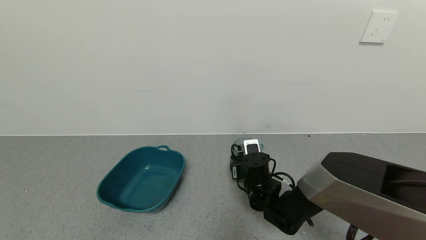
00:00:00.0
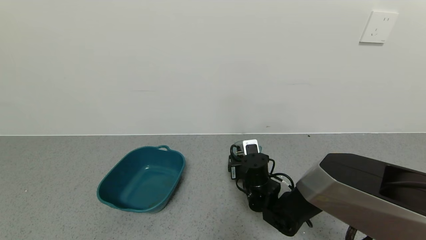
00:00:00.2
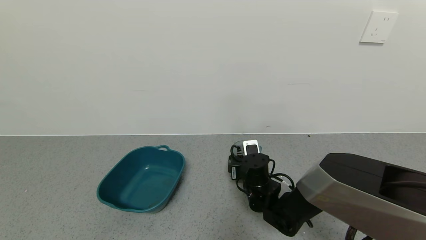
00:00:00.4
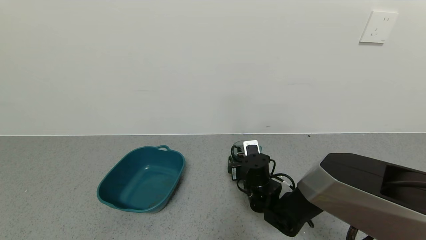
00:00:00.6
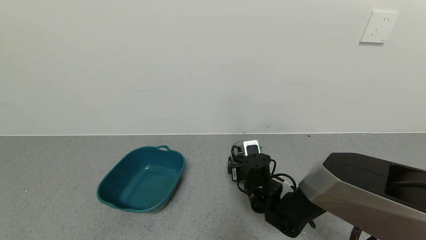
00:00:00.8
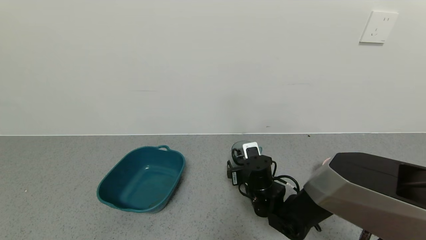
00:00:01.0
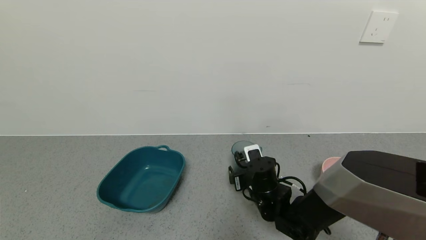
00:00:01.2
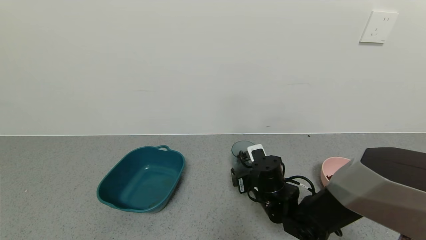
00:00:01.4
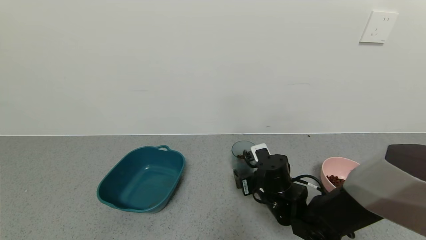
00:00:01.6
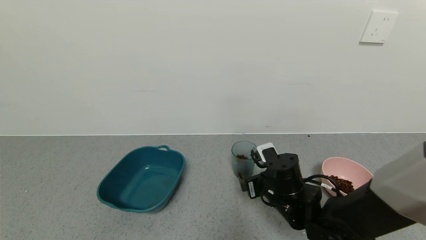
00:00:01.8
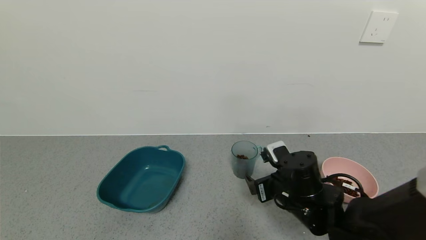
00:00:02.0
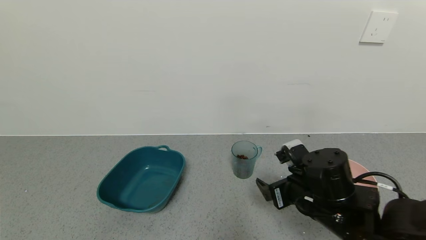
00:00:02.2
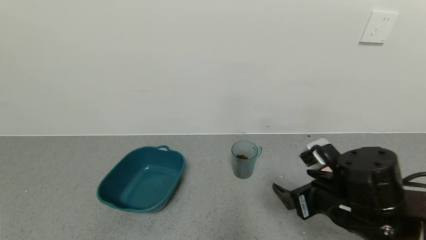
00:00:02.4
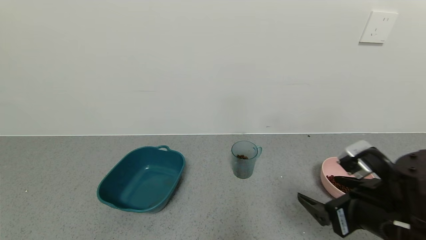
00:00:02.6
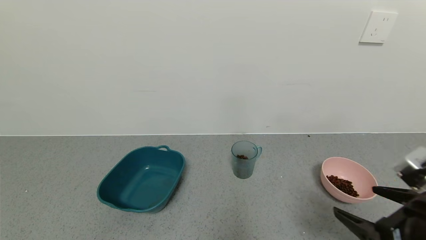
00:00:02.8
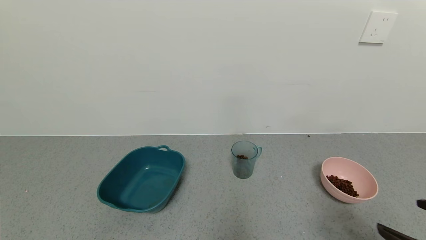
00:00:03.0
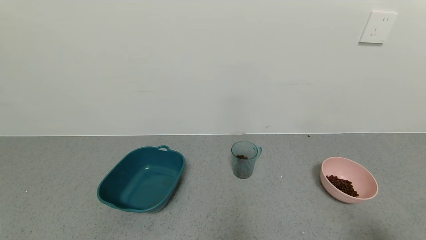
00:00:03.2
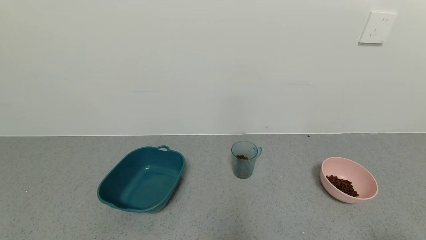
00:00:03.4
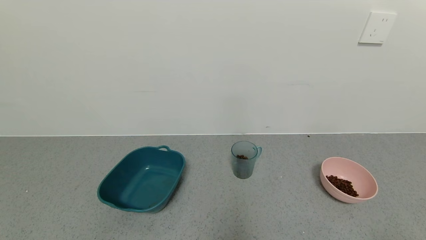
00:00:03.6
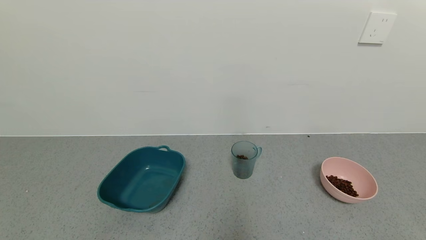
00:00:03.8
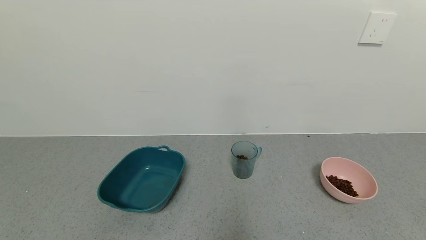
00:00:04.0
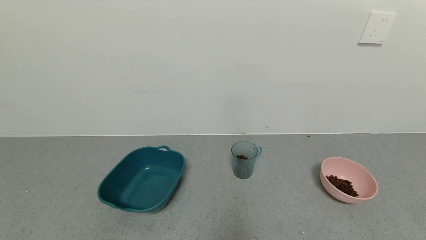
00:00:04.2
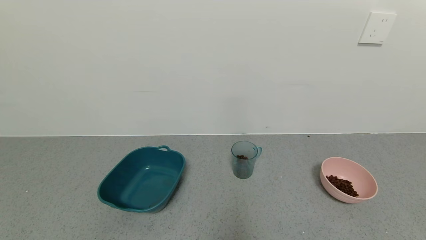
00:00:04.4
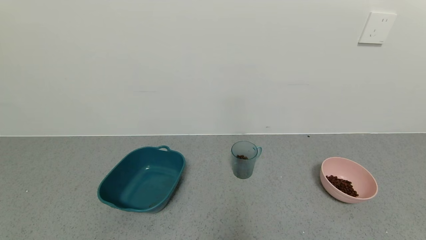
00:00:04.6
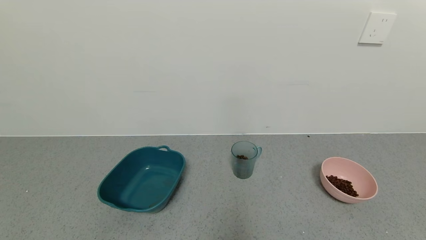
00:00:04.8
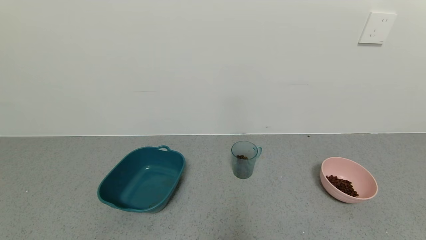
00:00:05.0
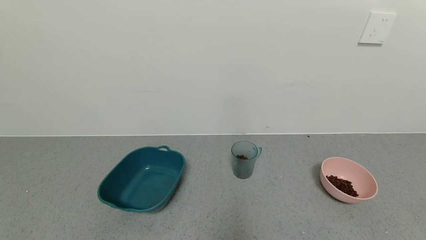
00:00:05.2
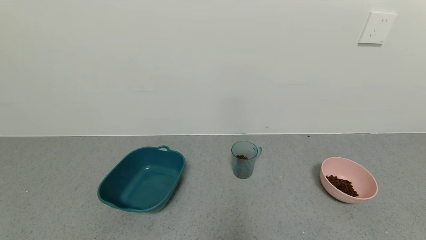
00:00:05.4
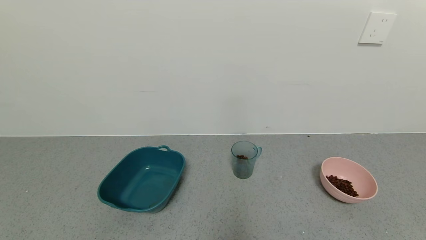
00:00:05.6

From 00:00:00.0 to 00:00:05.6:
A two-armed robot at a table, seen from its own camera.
Task of the whole recording: use a gripper to pick up the cup and pour the solid into a bowl or tray.
From 00:00:00.0 to 00:00:01.4: The right gripper opens.
From 00:00:01.4 to 00:00:02.8: The right gripper heads backward, to the right and upward, covering some 30 cm.
From 00:00:02.8 to 00:00:04.2: The right gripper shifts some 20 cm backward and to the right.
